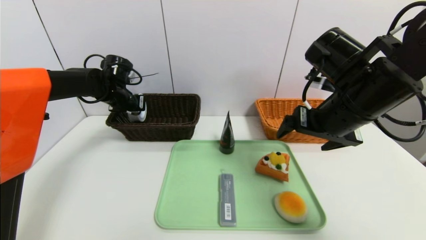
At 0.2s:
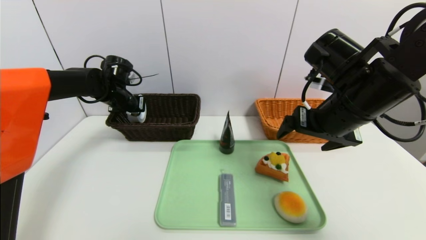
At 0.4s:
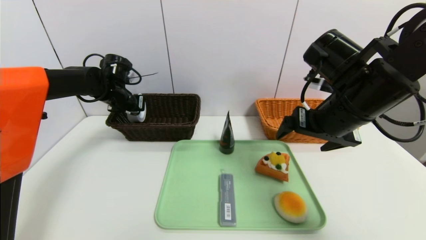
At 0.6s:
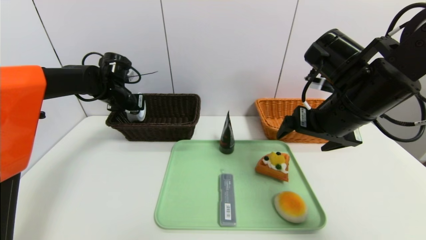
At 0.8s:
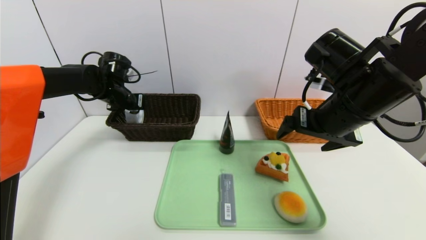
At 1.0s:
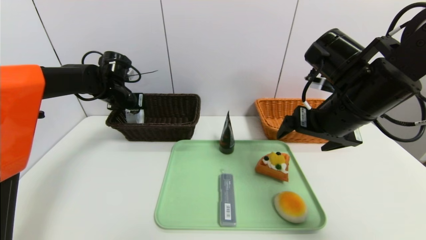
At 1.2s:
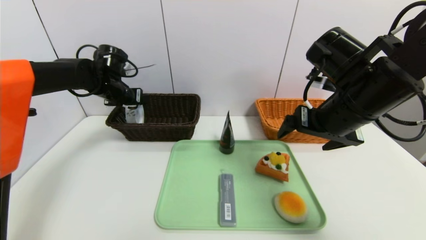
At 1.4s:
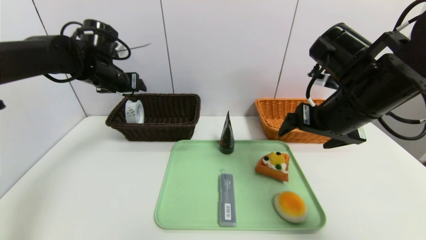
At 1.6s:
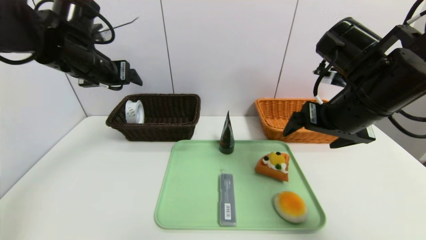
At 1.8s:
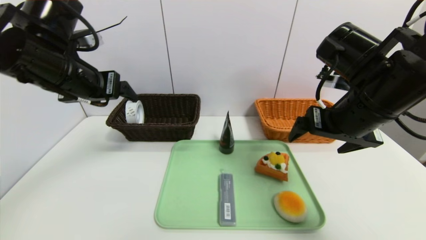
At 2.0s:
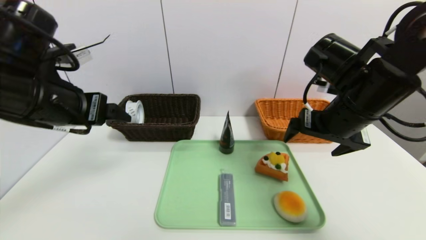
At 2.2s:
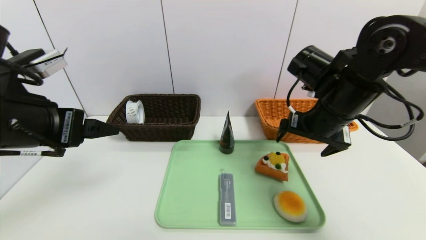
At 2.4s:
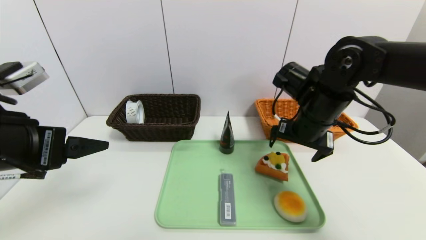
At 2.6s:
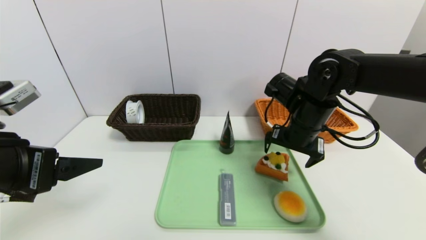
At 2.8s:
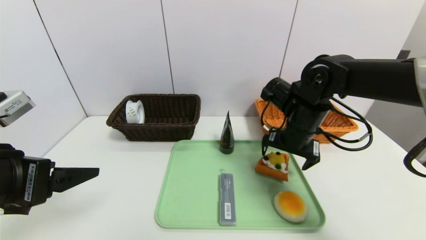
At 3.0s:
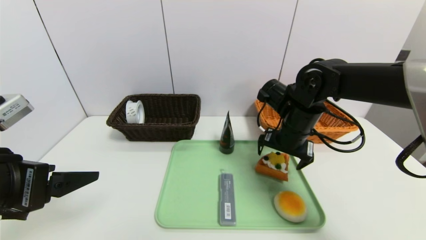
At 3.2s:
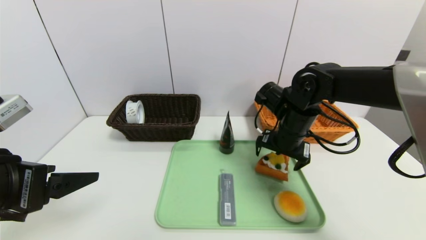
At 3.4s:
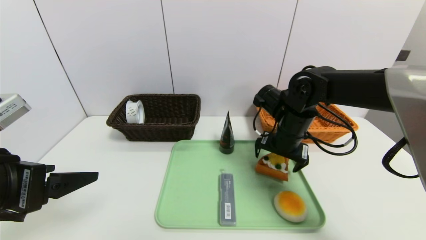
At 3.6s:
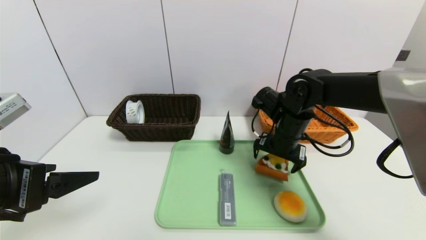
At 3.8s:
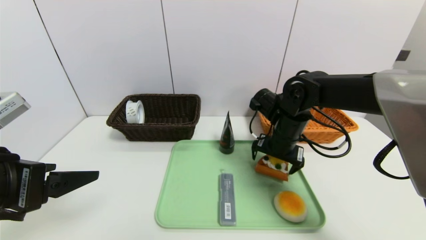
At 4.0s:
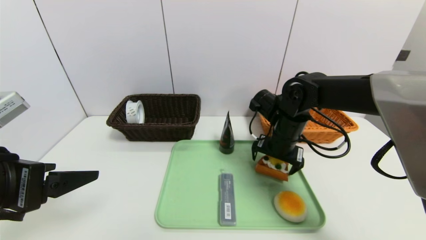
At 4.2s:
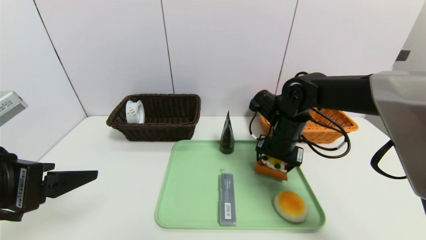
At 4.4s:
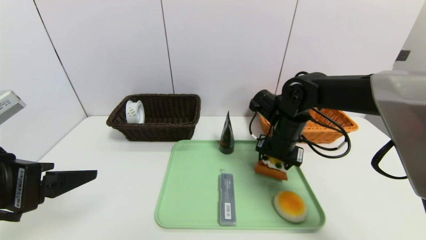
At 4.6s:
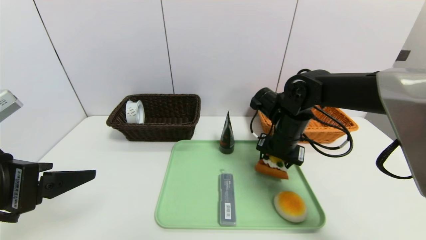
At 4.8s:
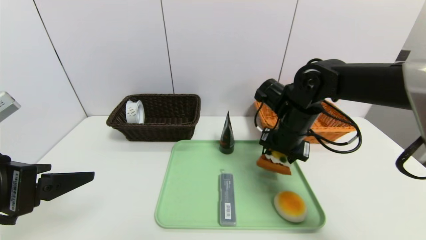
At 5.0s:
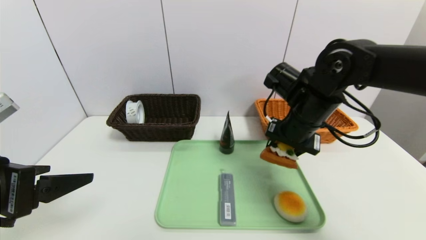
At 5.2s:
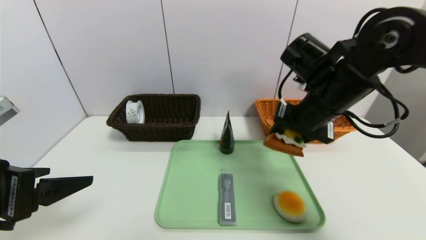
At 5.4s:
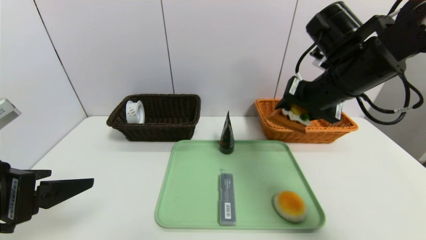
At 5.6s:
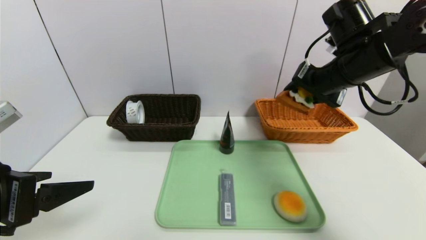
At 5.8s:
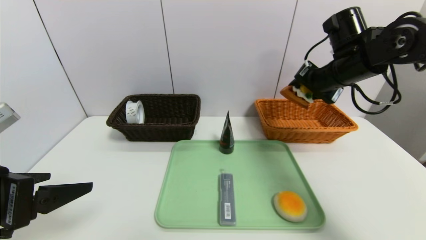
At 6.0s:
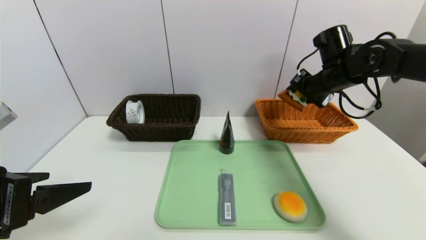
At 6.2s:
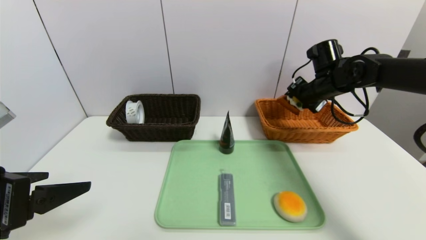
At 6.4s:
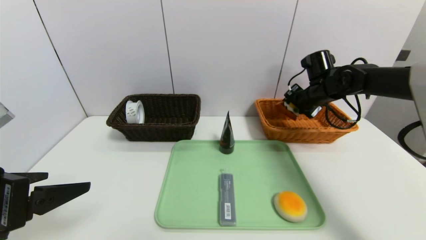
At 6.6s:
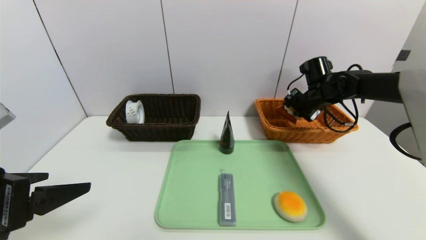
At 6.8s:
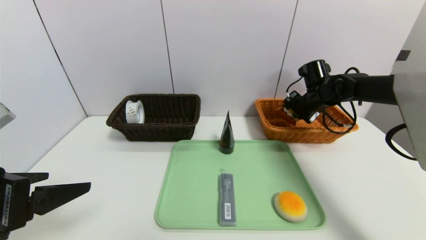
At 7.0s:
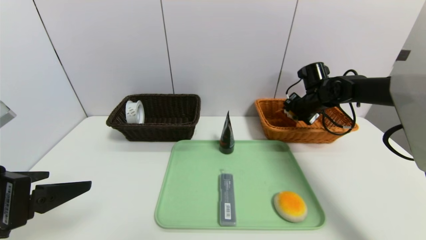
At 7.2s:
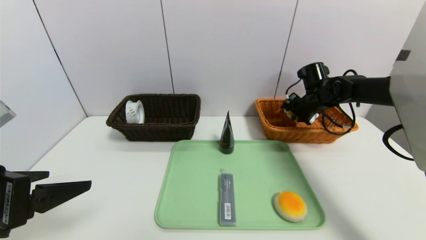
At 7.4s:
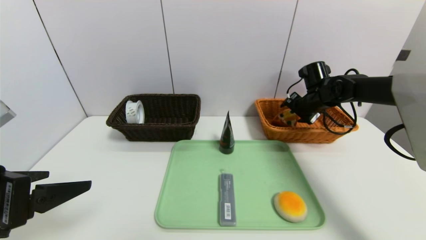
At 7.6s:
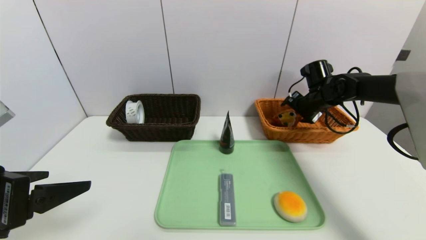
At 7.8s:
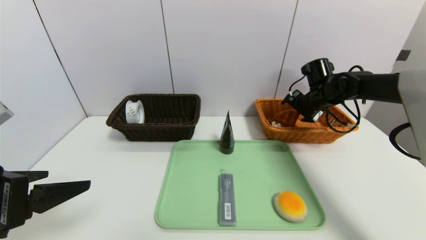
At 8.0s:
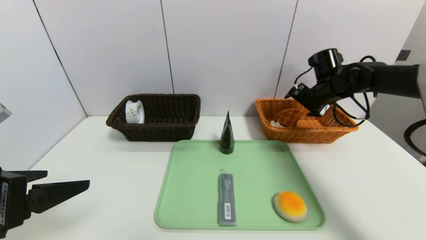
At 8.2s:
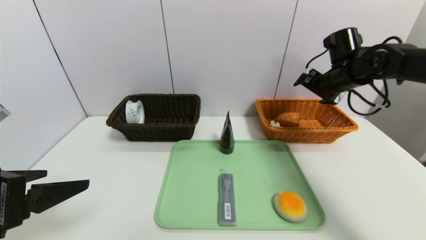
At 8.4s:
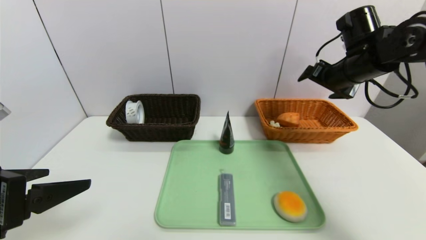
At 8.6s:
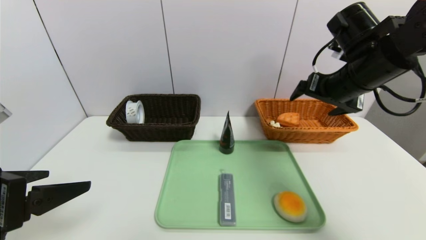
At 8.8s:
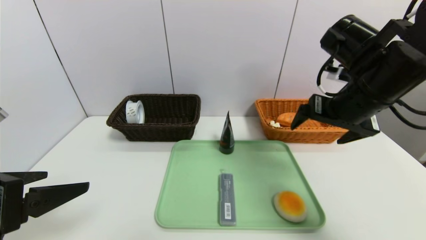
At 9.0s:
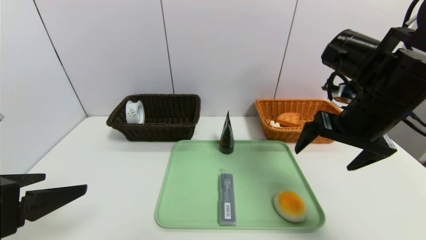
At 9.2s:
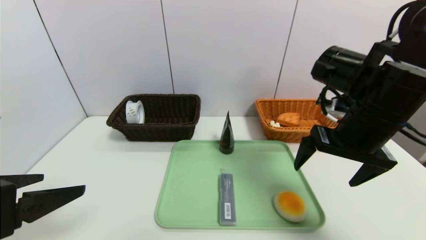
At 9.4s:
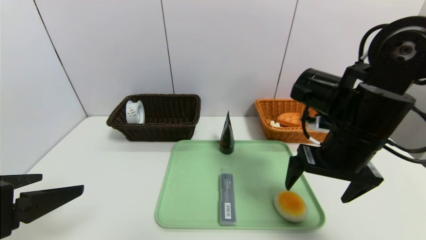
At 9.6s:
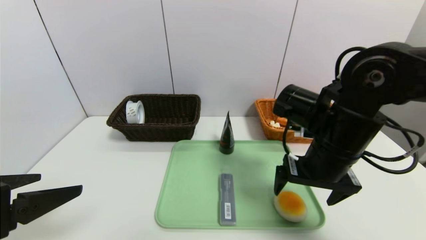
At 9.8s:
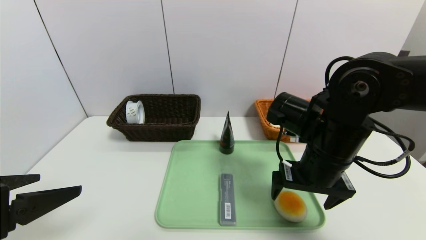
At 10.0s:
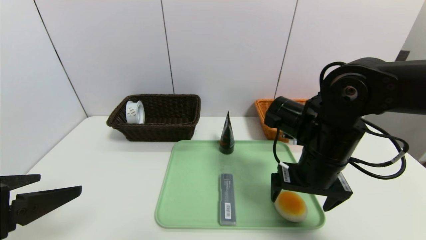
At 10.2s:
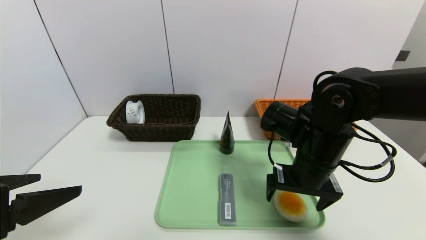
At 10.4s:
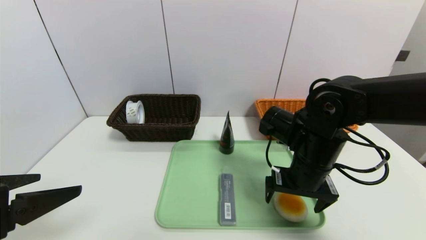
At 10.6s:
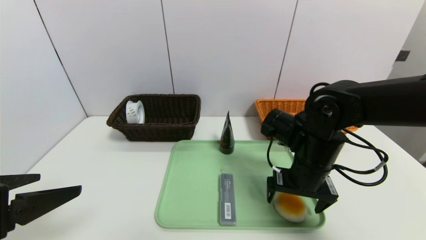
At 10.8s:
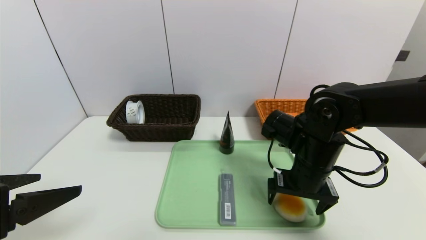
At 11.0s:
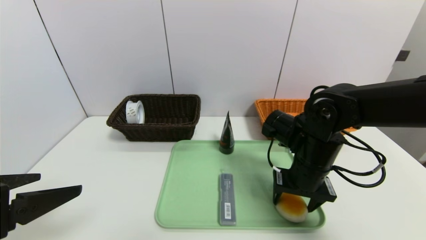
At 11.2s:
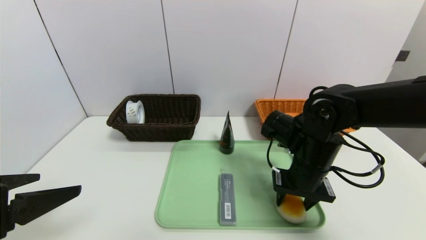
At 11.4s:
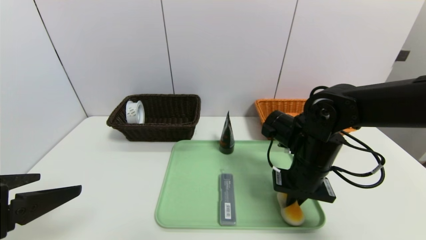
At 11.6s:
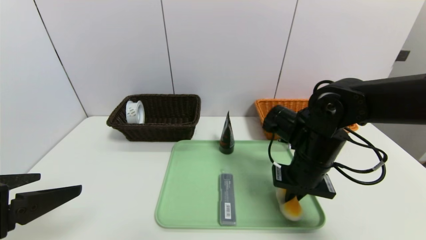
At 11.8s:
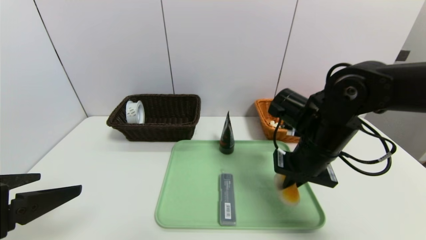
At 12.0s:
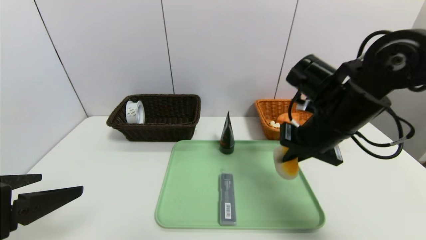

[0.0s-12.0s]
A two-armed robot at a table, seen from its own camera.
Task of the whole recording: place the food in the right basket with the right gripper, and place the non food items in the left basket with the left gripper.
Step, 1.6s to 8.0s: Grasp the waffle and put it in the right basket.
0.0s to 1.6s: The left gripper shifts some 20 cm backward and upward, and opens its fingers.
1.6s to 3.0s: The left gripper goes about 20 cm backward. Meanwhile the right gripper heads downward and forward, covering roughly 15 cm.
3.0s to 4.4s: The right gripper closes.
4.4s to 6.0s: The right gripper is displaced to the right, upward and forward by about 15 cm.
6.0s to 7.6s: The right gripper is displaced downward and forward by approximately 10 cm, and opens.
7.6s to 9.0s: The right gripper goes some 25 cm backward and upward.
9.0s to 10.4s: The right gripper heads downward and to the left, covering some 15 cm.
10.4s to 12.0s: The right gripper goes about 10 cm upward, and closes up.

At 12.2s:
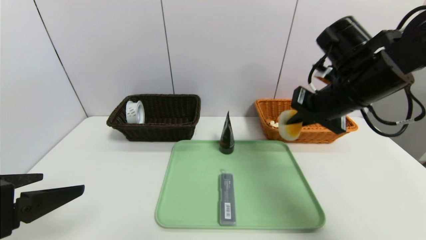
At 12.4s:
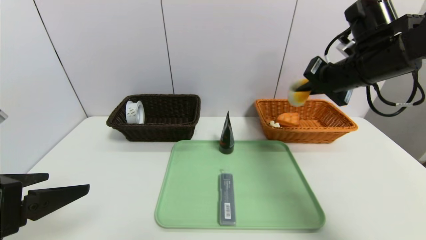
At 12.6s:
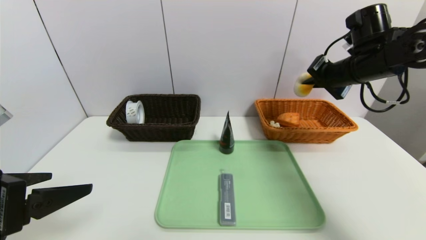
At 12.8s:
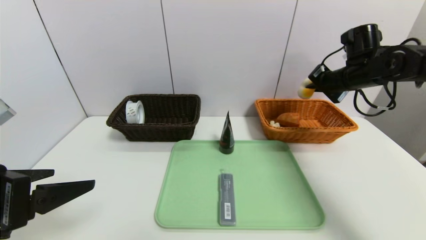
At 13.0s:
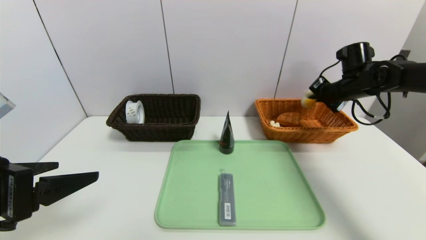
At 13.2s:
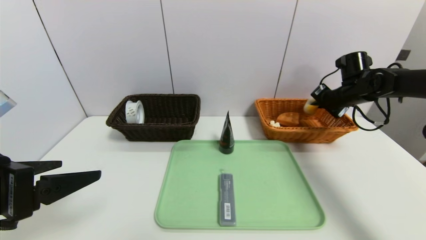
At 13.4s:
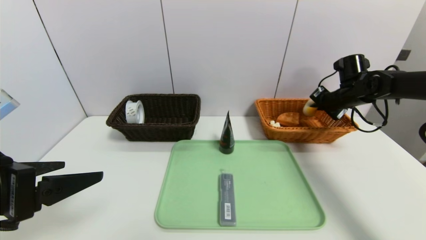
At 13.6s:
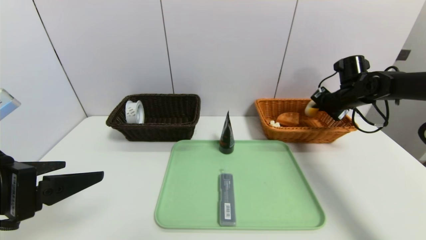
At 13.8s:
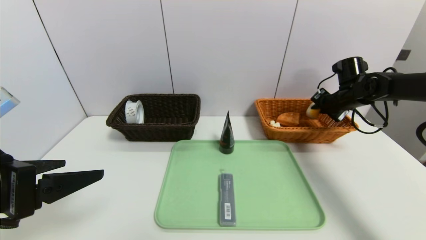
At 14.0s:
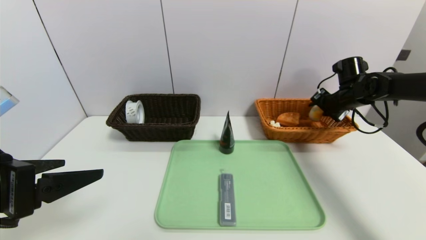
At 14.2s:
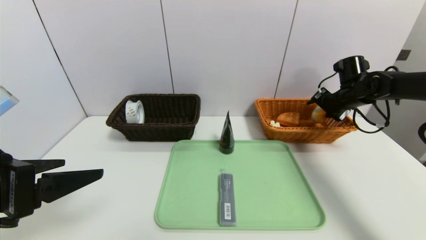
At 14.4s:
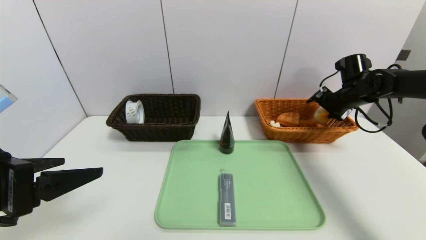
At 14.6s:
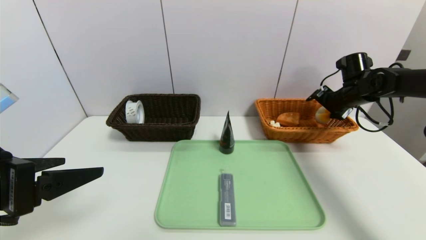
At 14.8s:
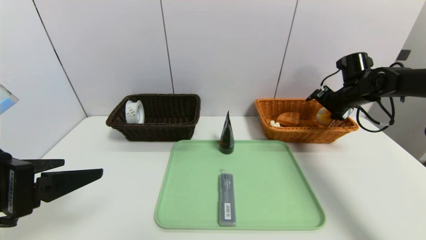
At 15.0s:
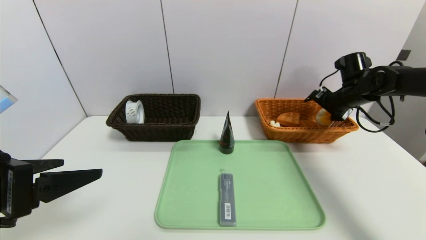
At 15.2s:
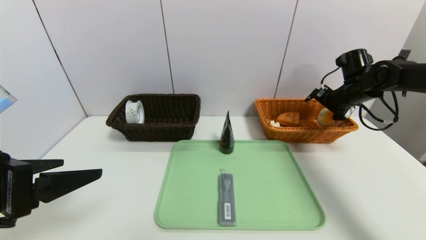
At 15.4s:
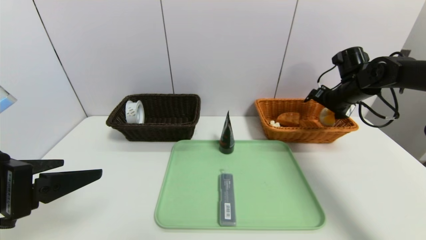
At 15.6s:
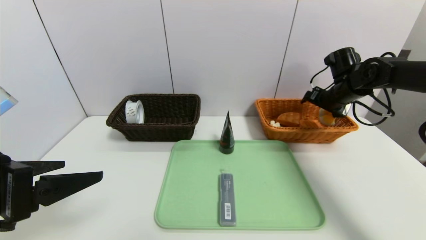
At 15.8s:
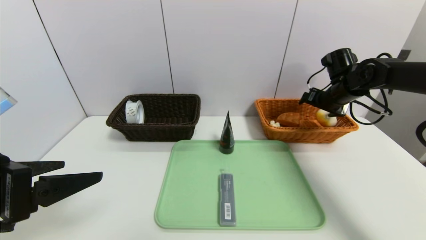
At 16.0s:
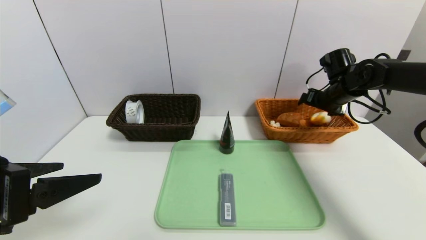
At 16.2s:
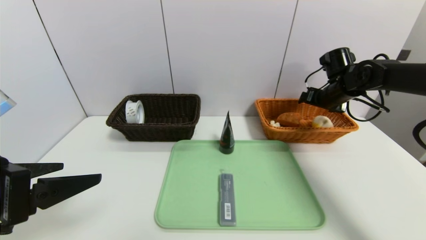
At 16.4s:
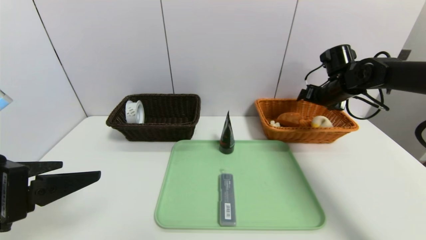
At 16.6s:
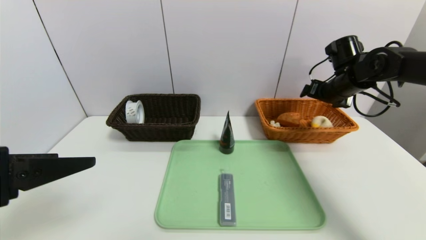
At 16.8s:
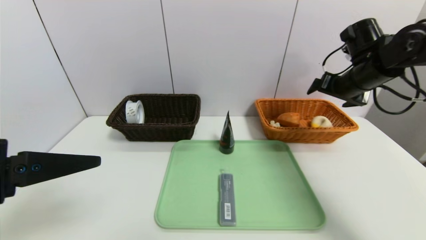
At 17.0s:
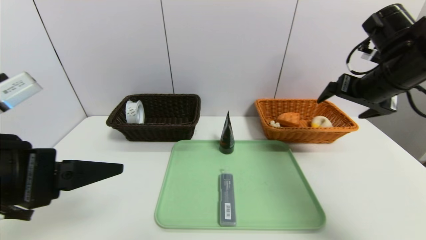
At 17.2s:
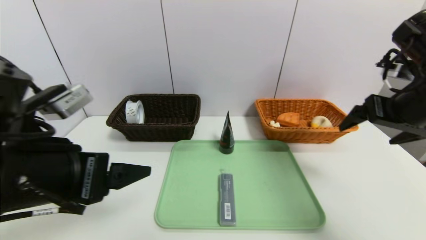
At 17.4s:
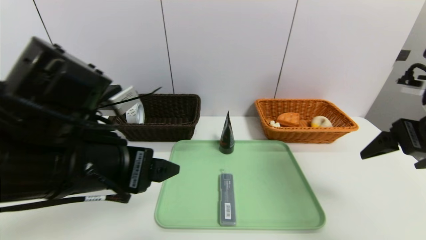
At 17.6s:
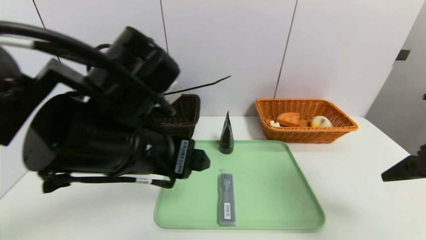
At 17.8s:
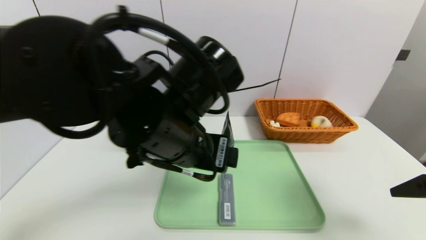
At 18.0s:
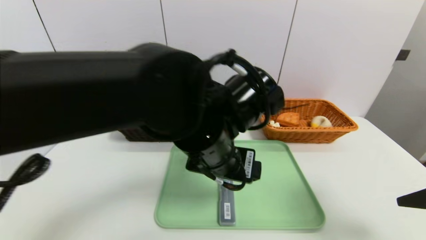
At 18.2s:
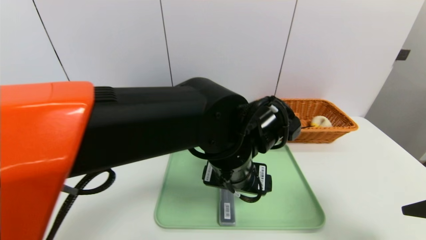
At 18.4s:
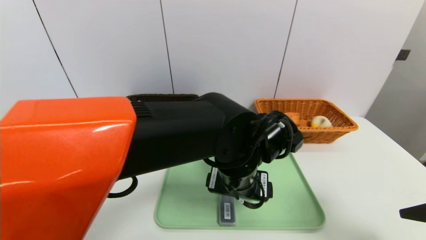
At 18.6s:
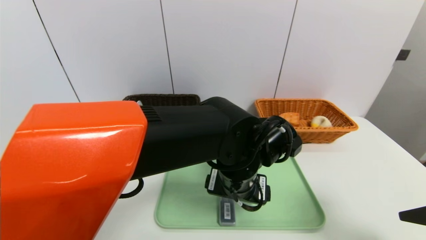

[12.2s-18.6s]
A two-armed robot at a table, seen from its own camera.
Task of the whole recording: place the food in the right basket with the right gripper, and place the non food items in the left basket with the left gripper.
Step, 12.2s to 16.2s: Grasp the egg yolk pastry and put it in the right basket.
12.2s to 13.8s: The right gripper moves forward, to the right and downward, roughly 25 cm.
13.8s to 15.4s: The right gripper opens.
15.4s to 17.0s: The right gripper goes roughly 15 cm backward and upward.
17.0s to 18.6s: The left gripper is displaced to the right, forward and downward by approximately 30 cm. Meanwhile the right gripper travels backward by roughly 20 cm.
